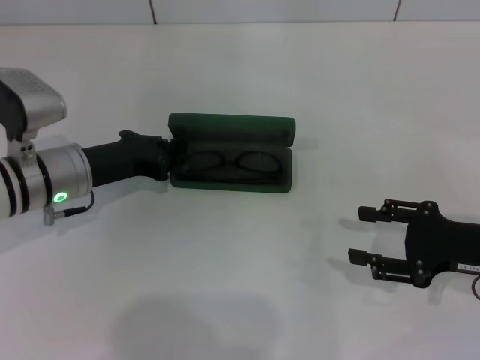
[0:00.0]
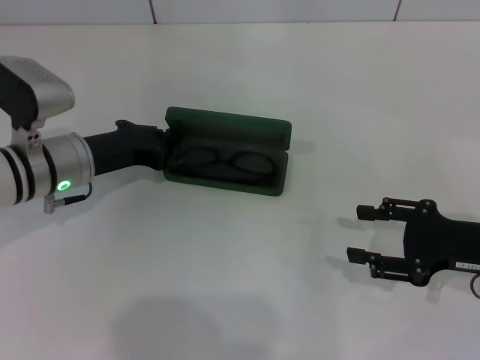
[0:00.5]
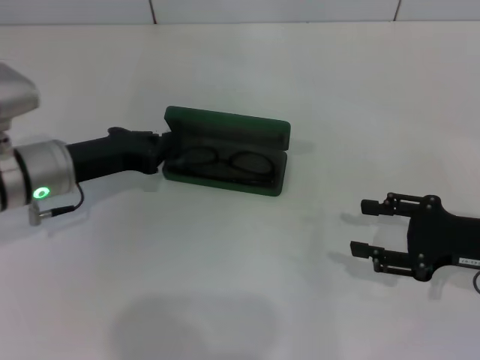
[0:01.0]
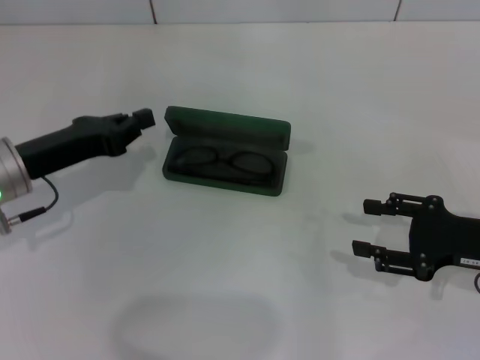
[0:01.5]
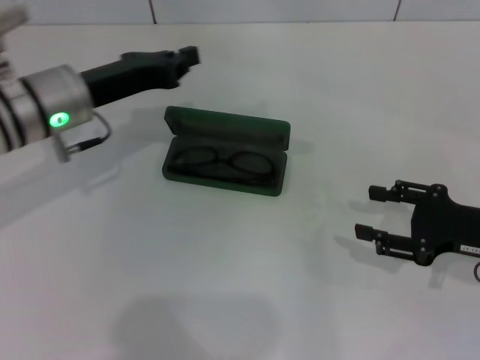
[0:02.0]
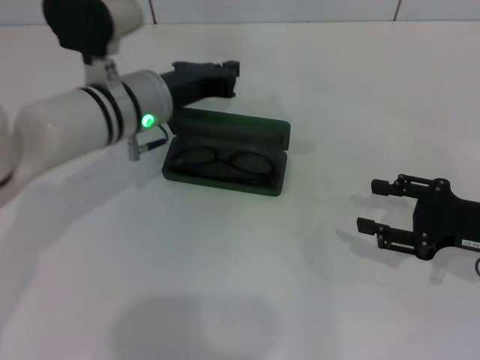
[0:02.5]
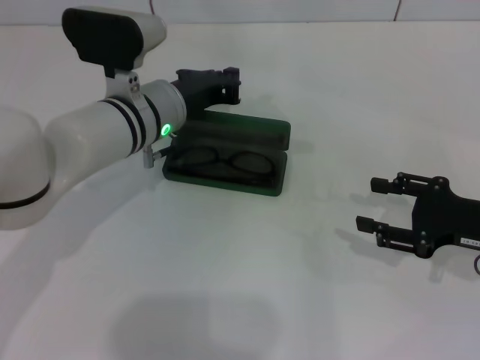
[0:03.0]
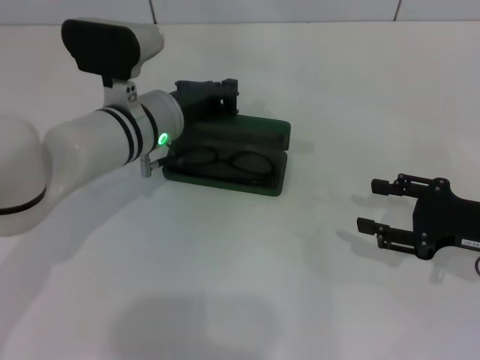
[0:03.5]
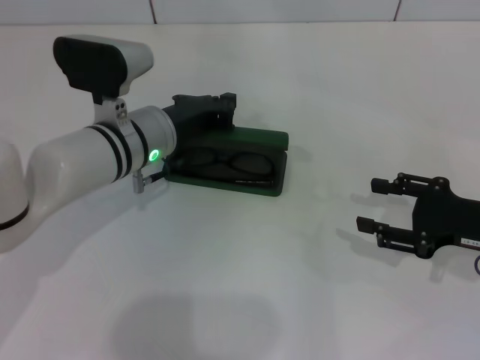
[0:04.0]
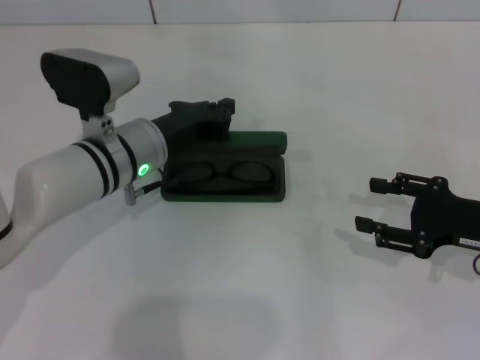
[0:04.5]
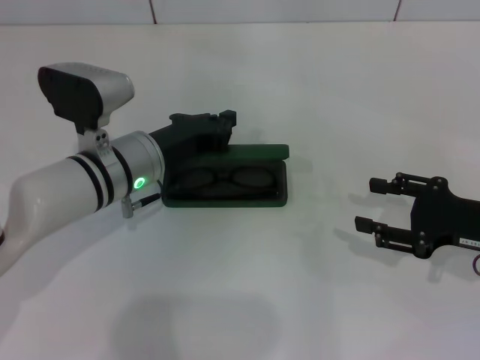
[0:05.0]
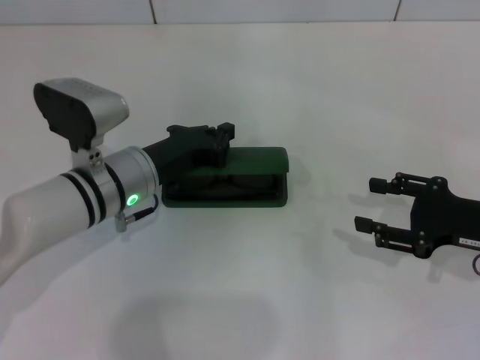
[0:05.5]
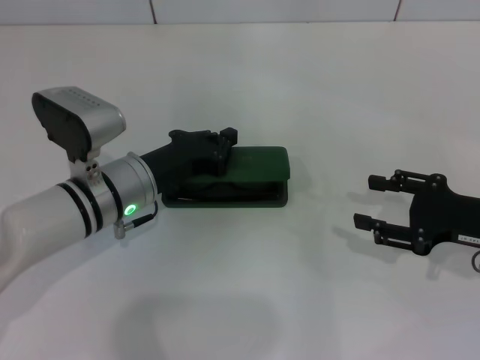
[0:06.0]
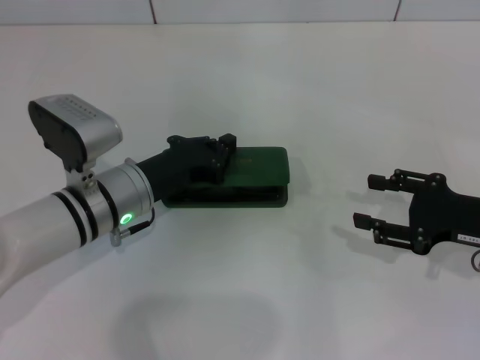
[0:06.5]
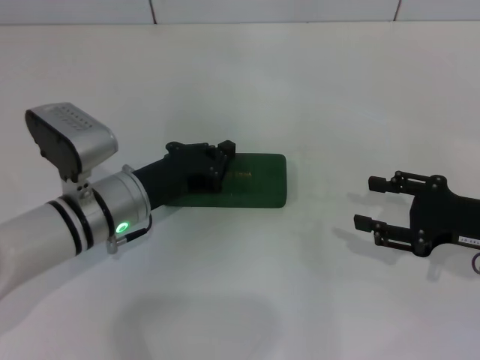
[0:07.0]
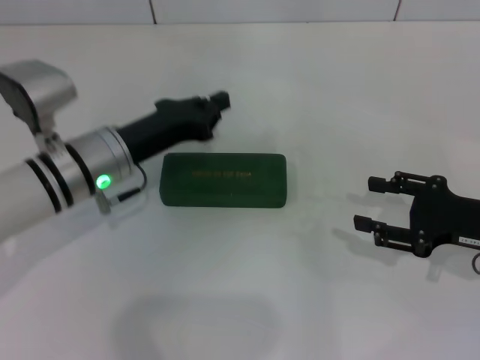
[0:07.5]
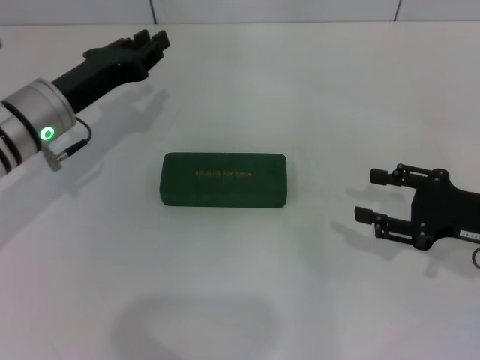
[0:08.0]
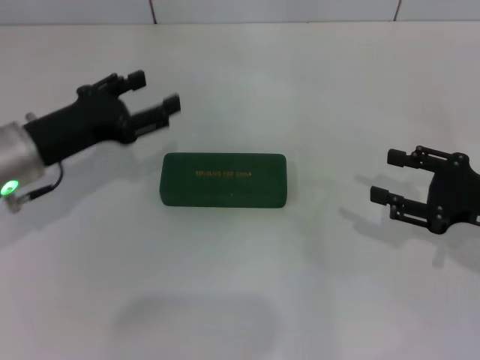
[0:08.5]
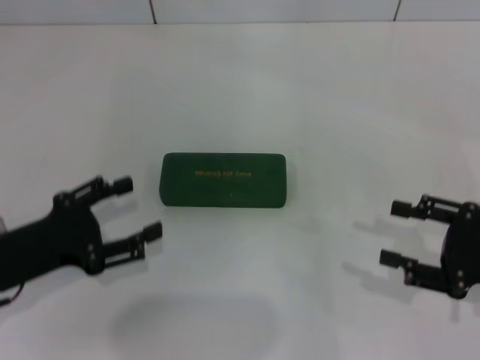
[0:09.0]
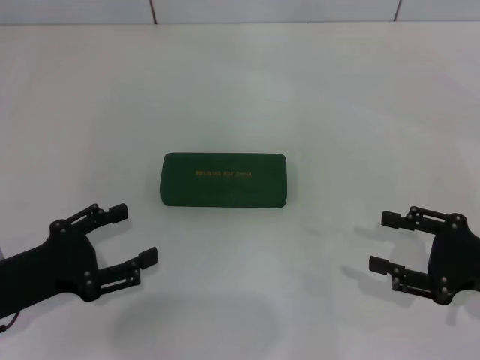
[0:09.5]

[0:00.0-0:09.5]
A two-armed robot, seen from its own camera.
Step, 0:00.0 to 0:07.0: Close the glasses case with your left hand.
0:00.0 to 0:02.0: The left gripper moves upward, approximately 5 cm.
0:02.0 to 0:04.0: The left gripper travels to the right by approximately 10 cm.
0:04.0 to 0:05.5: The grippers stay close to where they were, moving slightly.
0:05.5 to 0:07.5: The grippers move only a little.
0:07.5 to 0:09.5: The left gripper shifts roughly 15 cm backward and to the left, and opens its fingers.

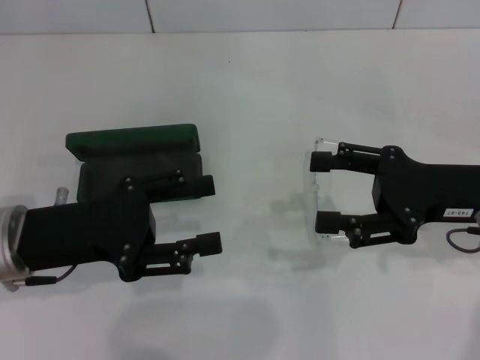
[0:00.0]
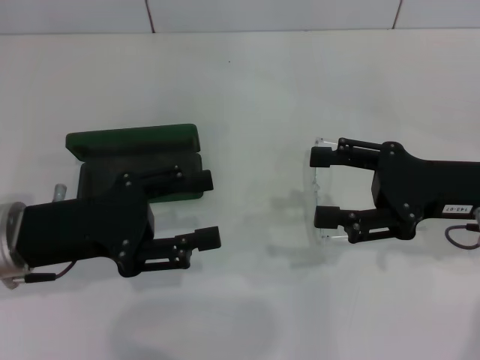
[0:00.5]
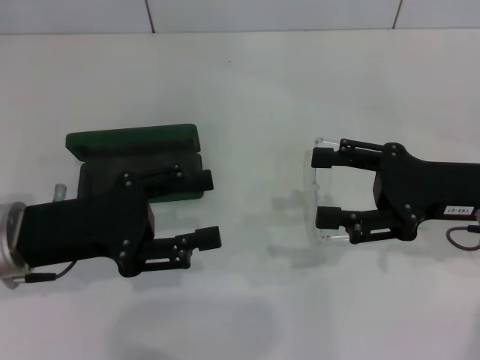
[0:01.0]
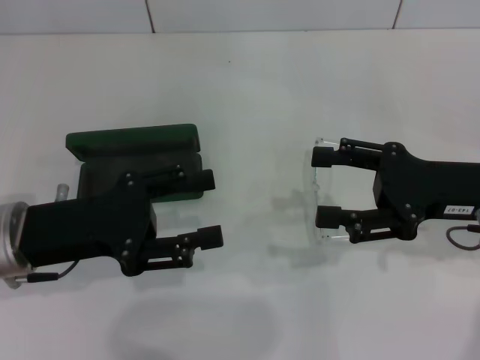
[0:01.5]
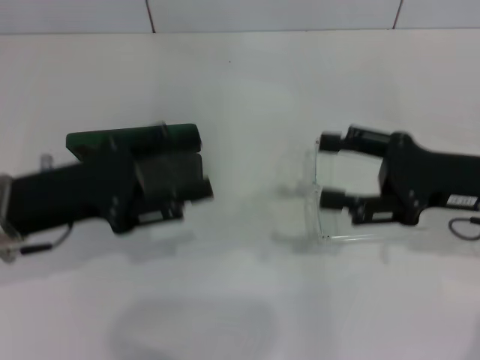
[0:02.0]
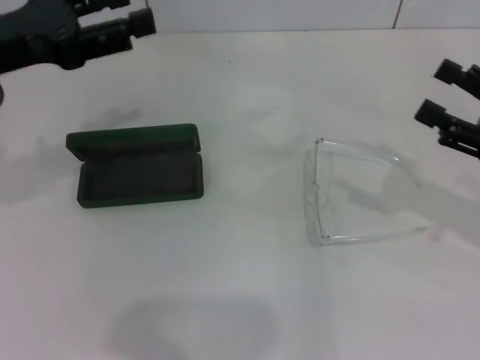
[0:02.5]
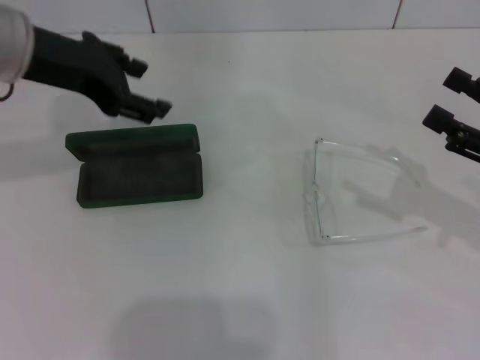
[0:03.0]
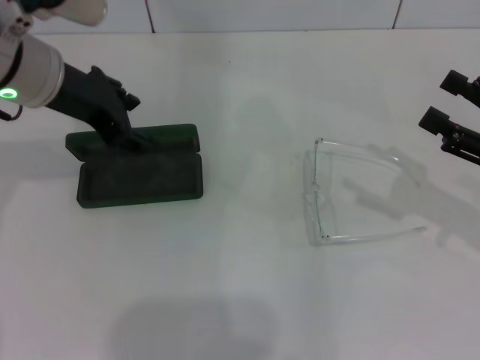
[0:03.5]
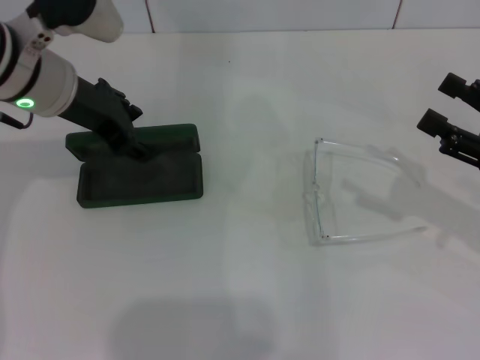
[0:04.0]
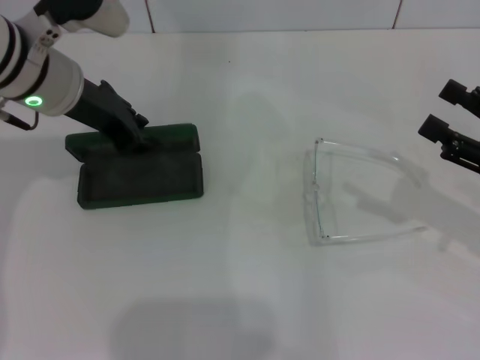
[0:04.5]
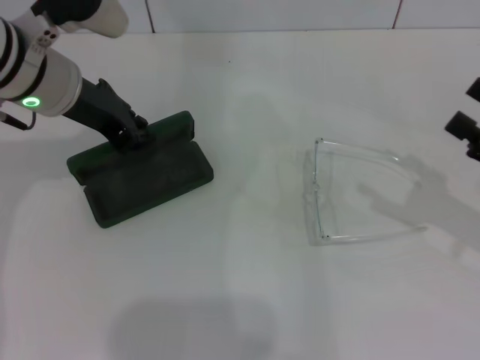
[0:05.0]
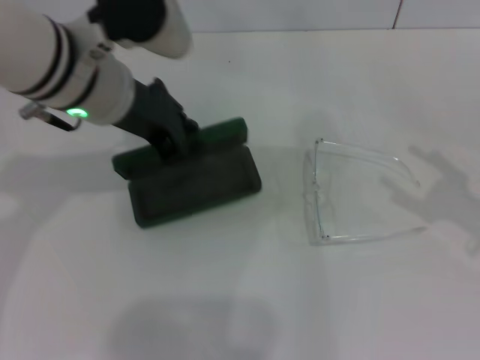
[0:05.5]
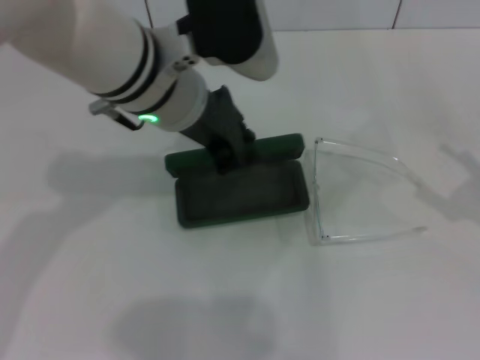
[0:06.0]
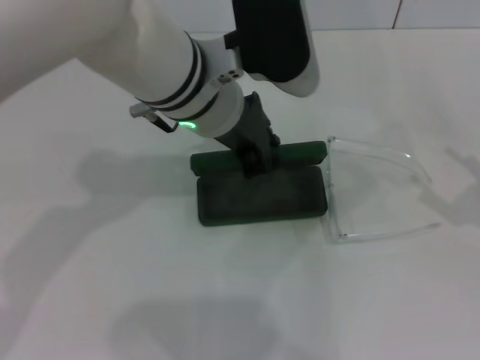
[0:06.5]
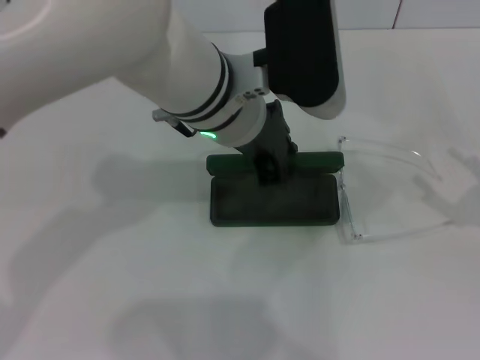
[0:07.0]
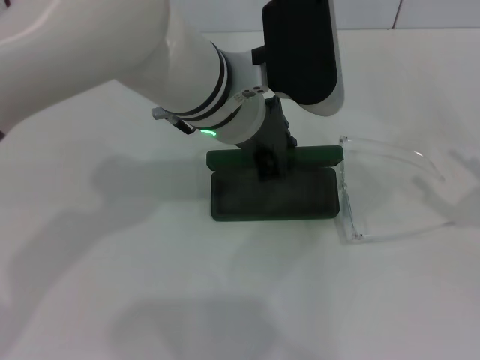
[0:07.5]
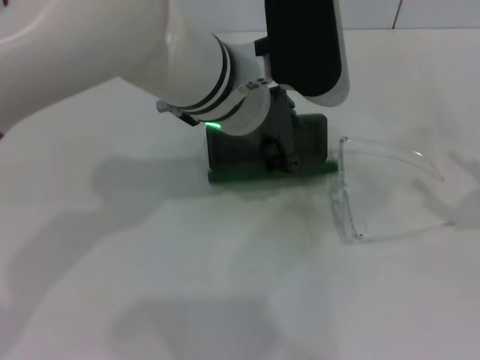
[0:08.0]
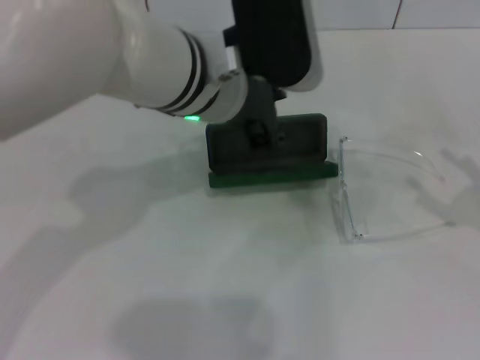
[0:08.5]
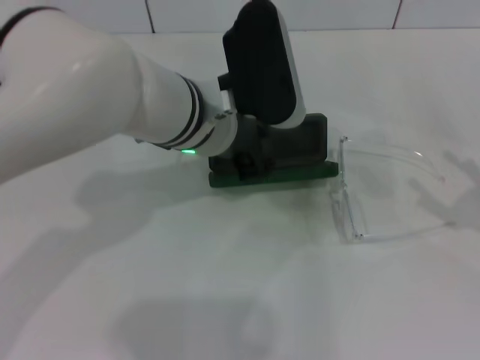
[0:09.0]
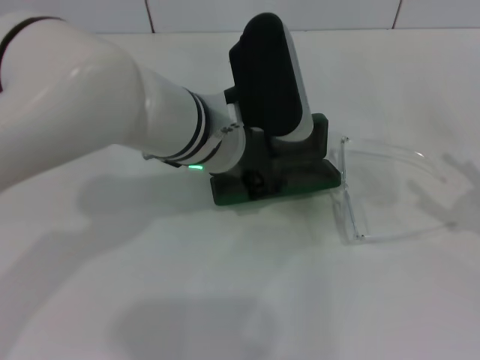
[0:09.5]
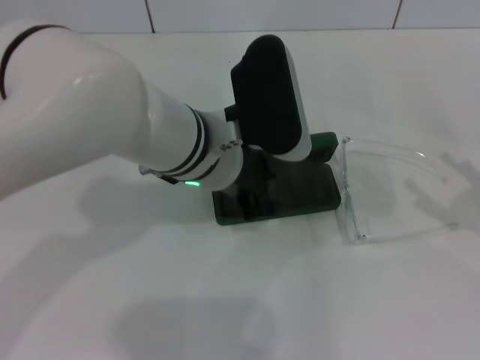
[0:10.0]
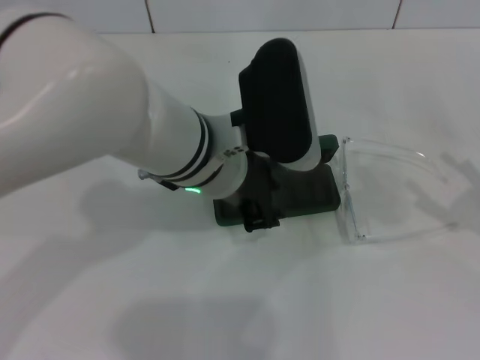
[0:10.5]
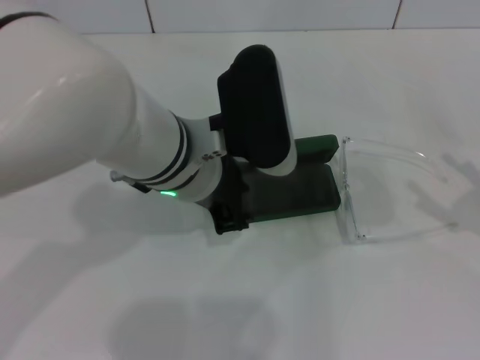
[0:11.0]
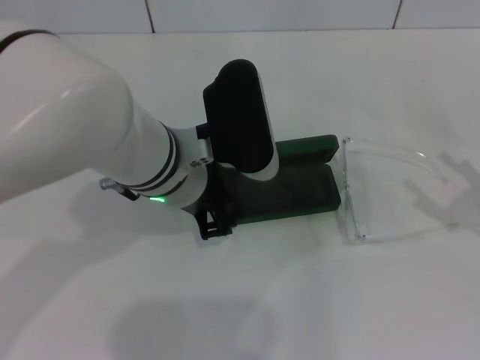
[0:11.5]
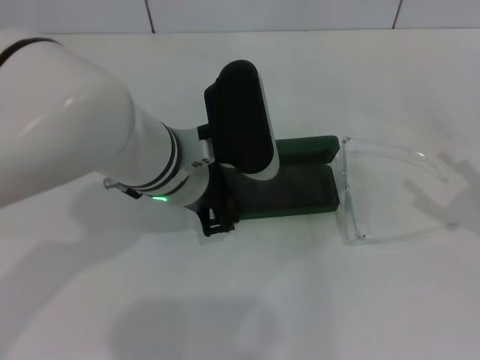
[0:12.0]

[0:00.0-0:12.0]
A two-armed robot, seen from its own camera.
Step, 0:00.0 to 0:04.5: Grab the glasses case with your left hand.
Step, 0:05.0 to 0:10.5: Place the glasses case in the center of the table with your left hand.
0:00.0 to 0:02.0: The grippers stay close to where they were, moving slightly.
0:02.0 to 0:04.0: The right gripper moves to the right, some 5 cm, while the left gripper heads forward and upward, covering about 15 cm.
0:04.0 to 0:06.0: The left gripper heads to the right, covering roughly 10 cm, and closes its fingers; the right gripper ends up roughly 5 cm from where it was.
0:06.0 to 0:08.0: The left gripper heads to the right, covering some 5 cm.
0:08.0 to 0:10.0: The left gripper is displaced downward by roughly 5 cm.
0:10.0 to 0:12.0: The grippers stay close to where they were, moving slightly.

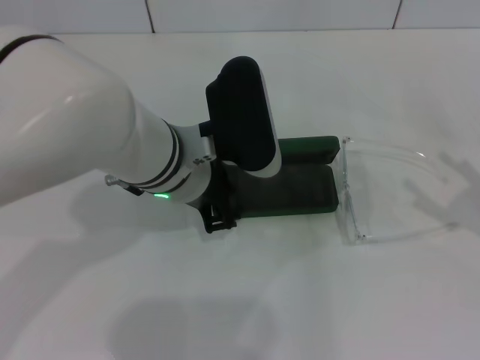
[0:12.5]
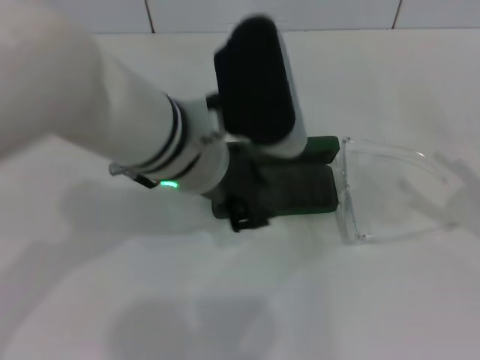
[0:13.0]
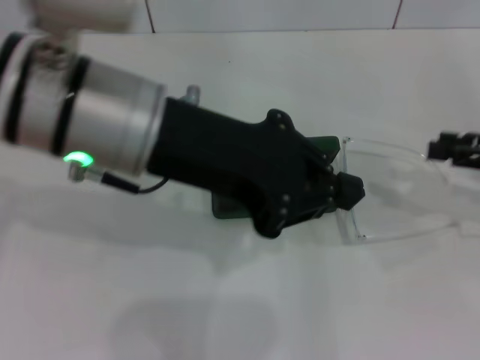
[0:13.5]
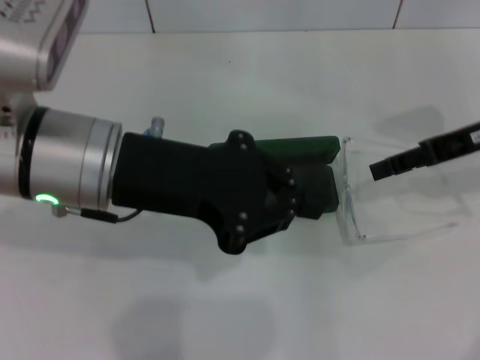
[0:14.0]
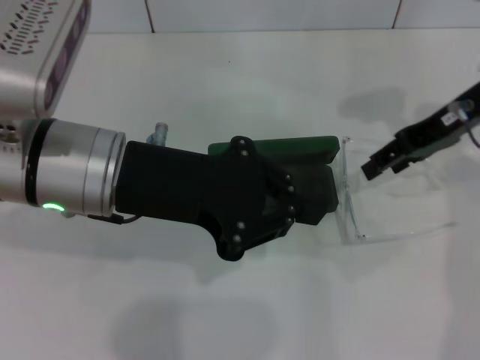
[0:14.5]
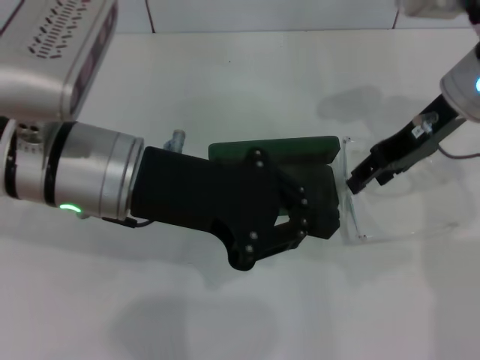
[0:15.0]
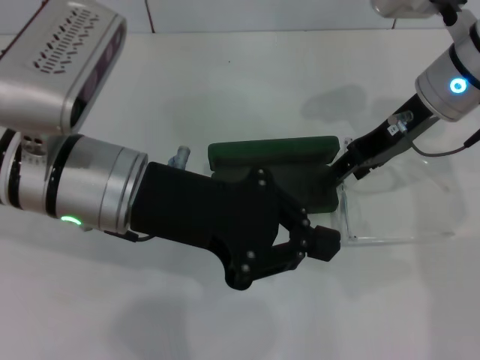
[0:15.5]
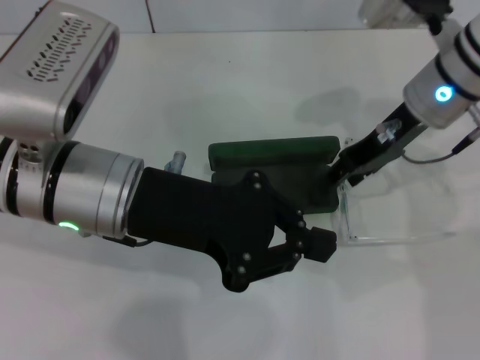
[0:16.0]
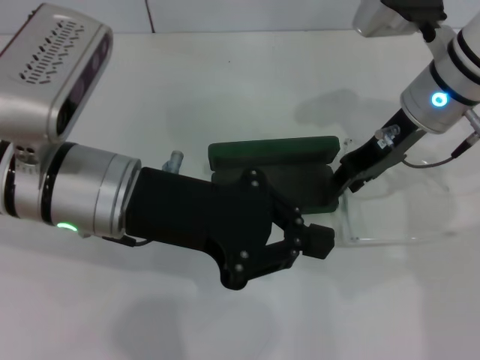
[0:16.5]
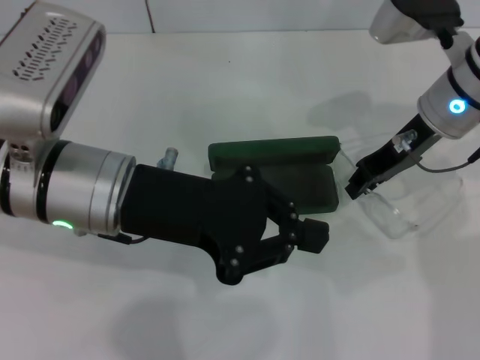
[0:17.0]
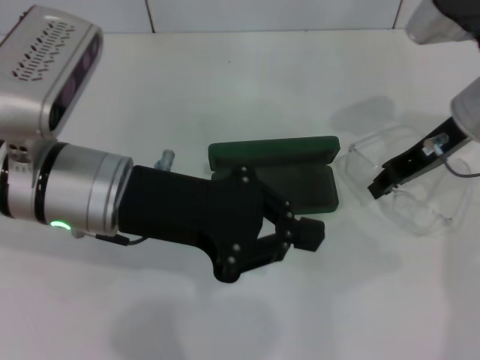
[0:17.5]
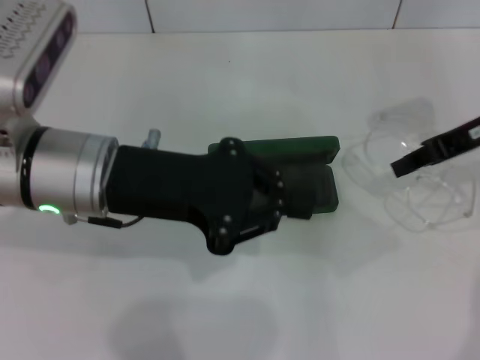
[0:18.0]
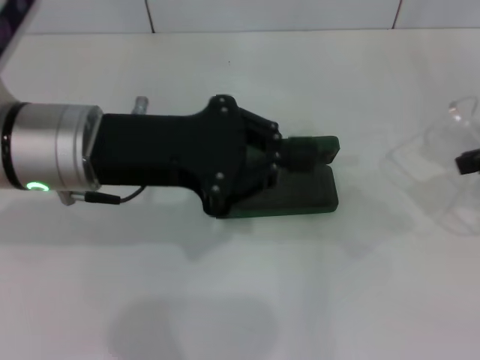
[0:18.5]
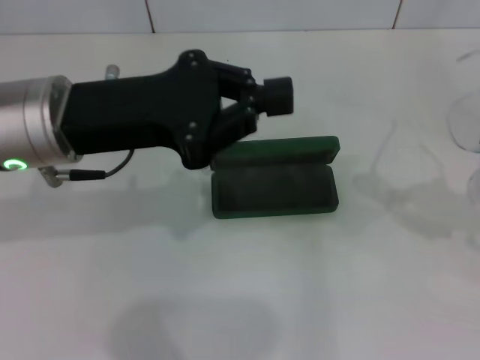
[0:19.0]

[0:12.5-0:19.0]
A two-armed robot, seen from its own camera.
Step, 0:12.5 to 0:17.0: Grab the eyeglass frame with your right hand.
0:12.5 to 0:14.5: The right gripper is displaced forward, to the left and upward by approximately 25 cm. Meanwhile the left gripper moves to the left and upward, roughly 10 cm, and closes up.
0:14.5 to 0:17.0: The right gripper changes place by approximately 5 cm, and closes.
0:17.0 to 0:19.0: The right gripper heads to the right and backward, covering approximately 20 cm.
